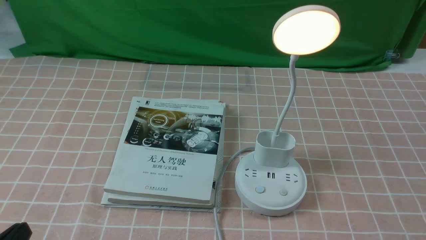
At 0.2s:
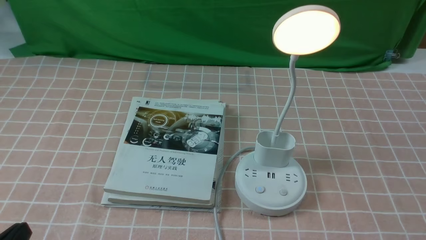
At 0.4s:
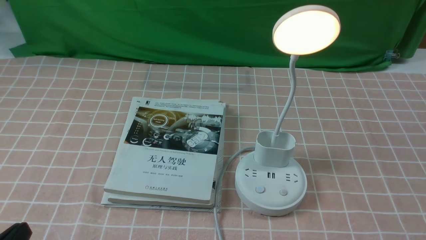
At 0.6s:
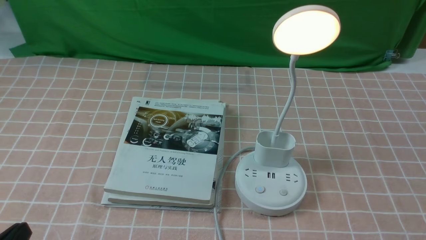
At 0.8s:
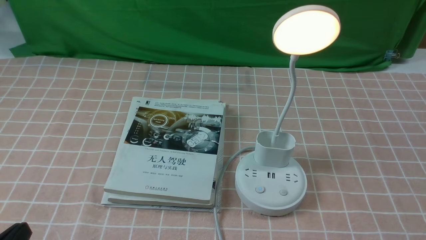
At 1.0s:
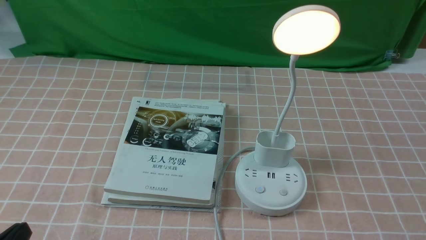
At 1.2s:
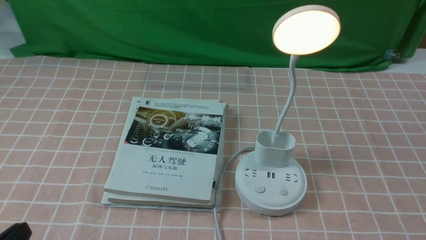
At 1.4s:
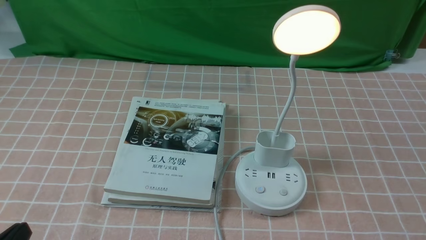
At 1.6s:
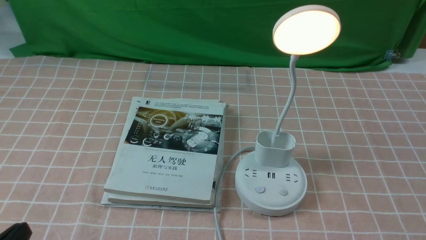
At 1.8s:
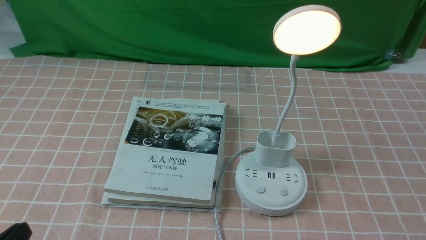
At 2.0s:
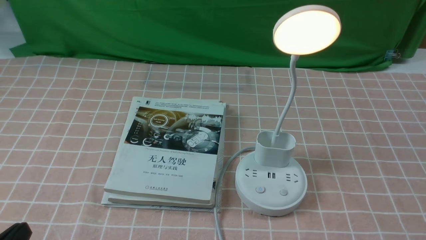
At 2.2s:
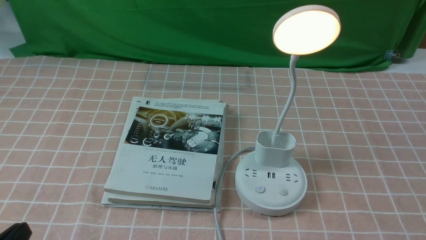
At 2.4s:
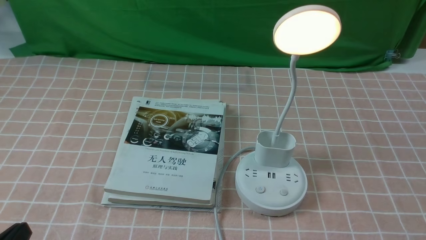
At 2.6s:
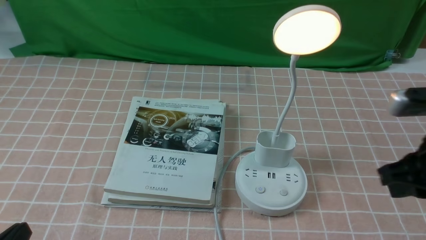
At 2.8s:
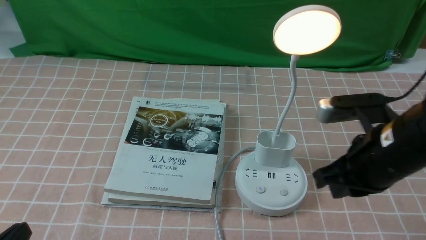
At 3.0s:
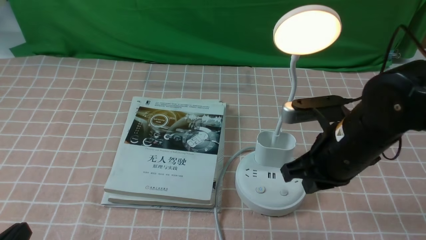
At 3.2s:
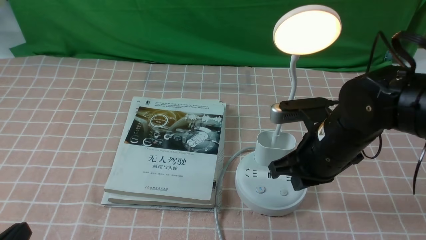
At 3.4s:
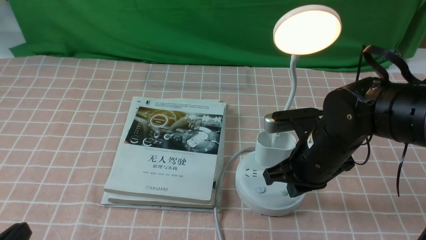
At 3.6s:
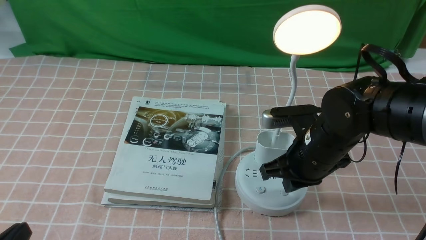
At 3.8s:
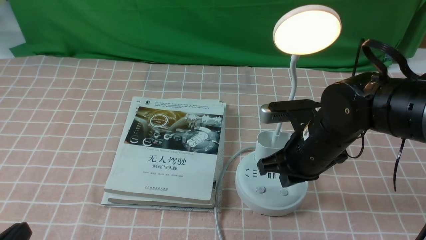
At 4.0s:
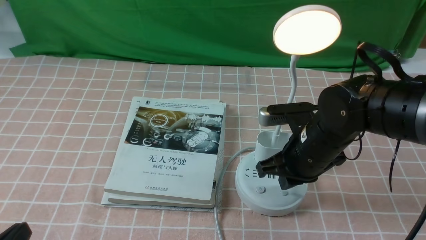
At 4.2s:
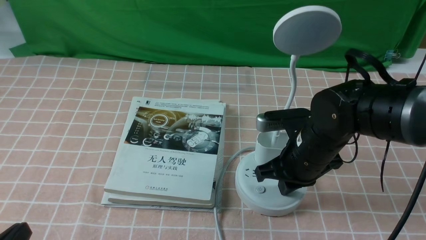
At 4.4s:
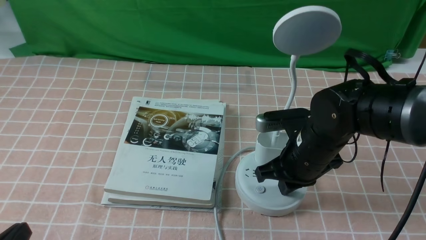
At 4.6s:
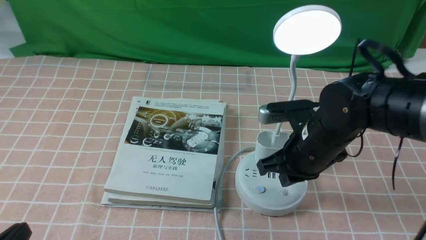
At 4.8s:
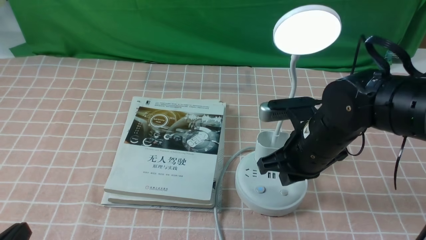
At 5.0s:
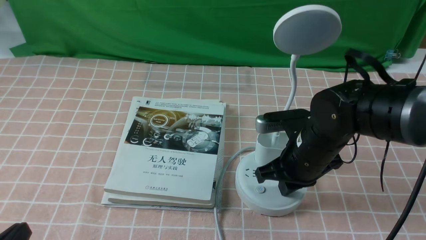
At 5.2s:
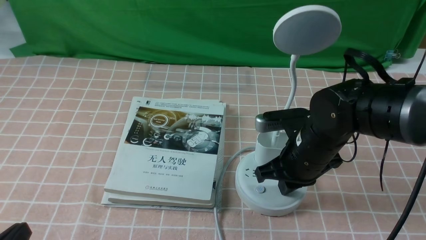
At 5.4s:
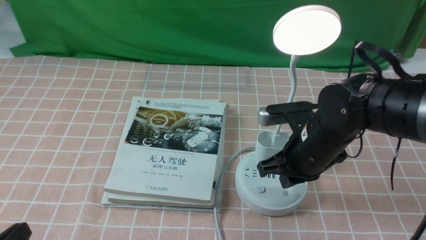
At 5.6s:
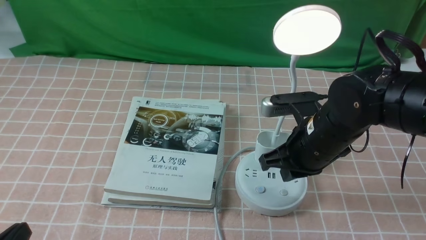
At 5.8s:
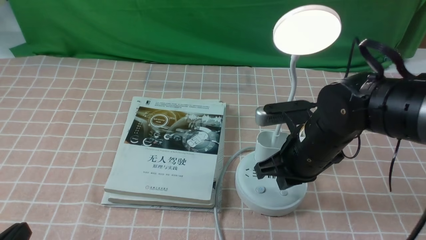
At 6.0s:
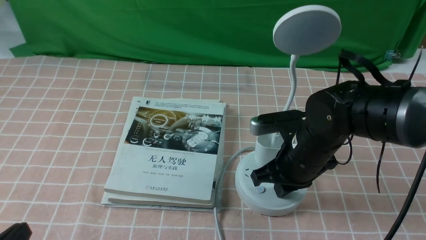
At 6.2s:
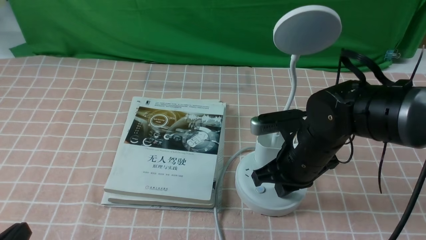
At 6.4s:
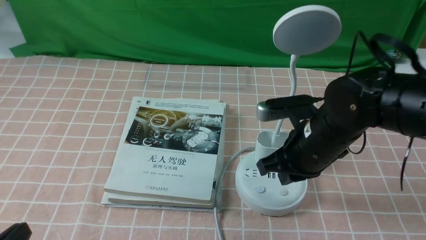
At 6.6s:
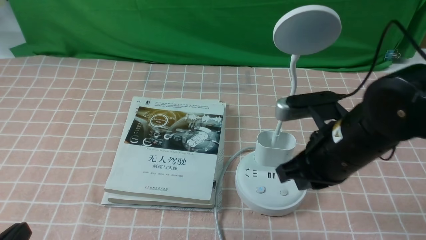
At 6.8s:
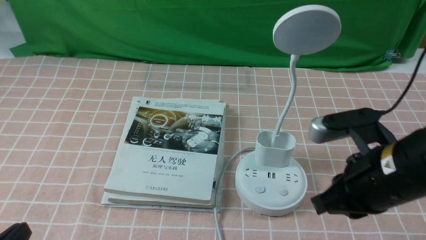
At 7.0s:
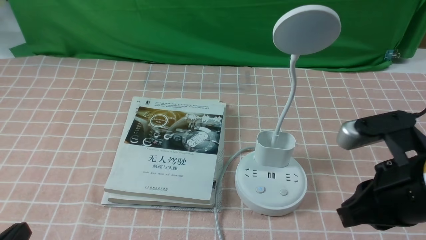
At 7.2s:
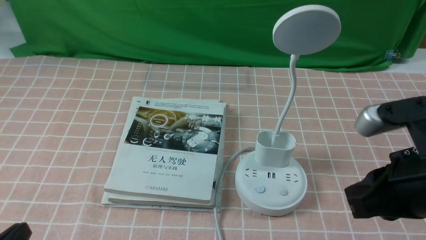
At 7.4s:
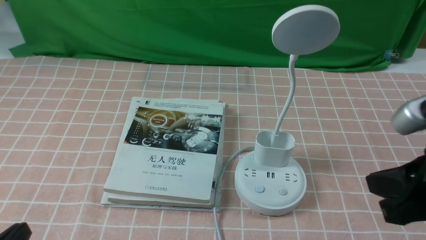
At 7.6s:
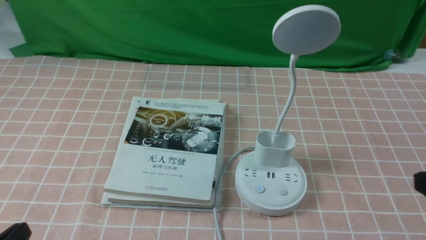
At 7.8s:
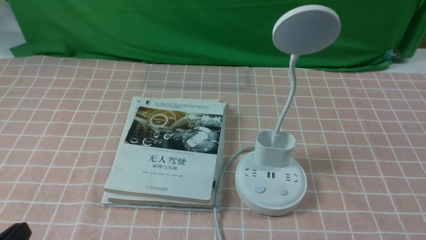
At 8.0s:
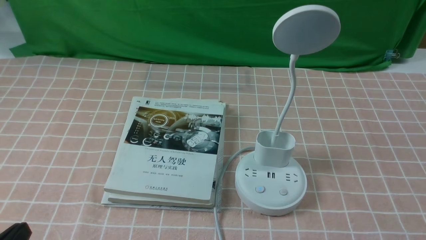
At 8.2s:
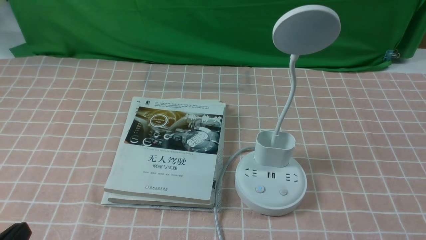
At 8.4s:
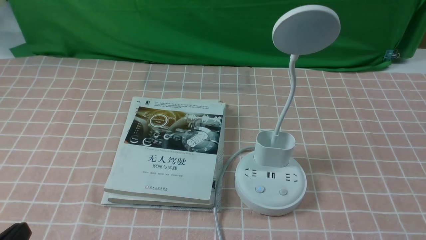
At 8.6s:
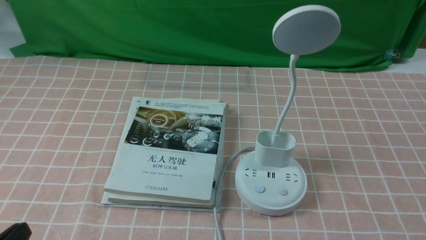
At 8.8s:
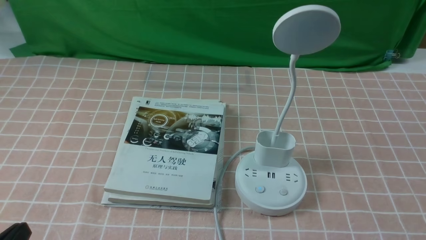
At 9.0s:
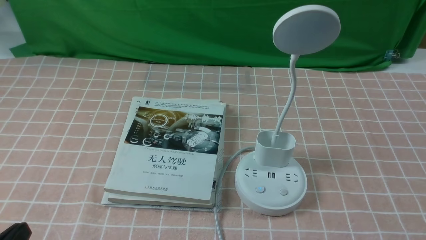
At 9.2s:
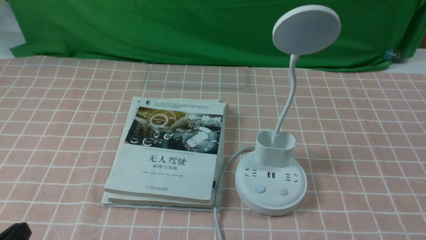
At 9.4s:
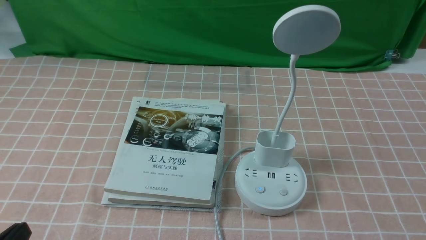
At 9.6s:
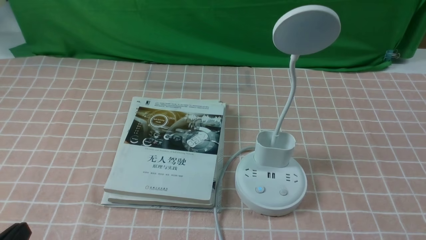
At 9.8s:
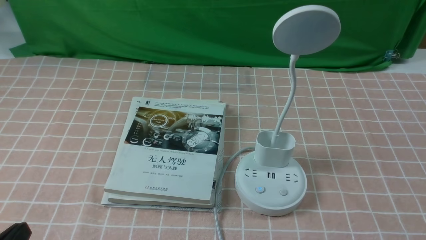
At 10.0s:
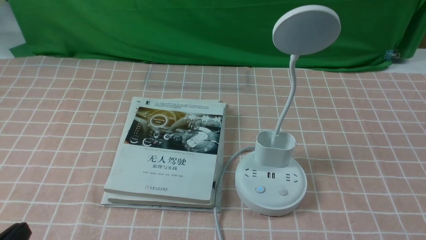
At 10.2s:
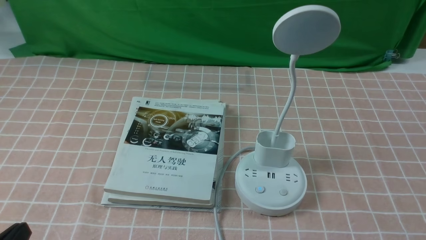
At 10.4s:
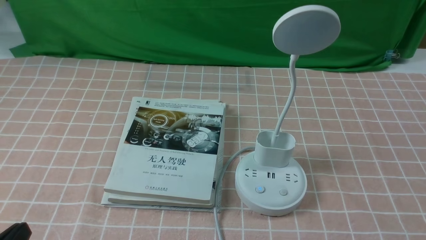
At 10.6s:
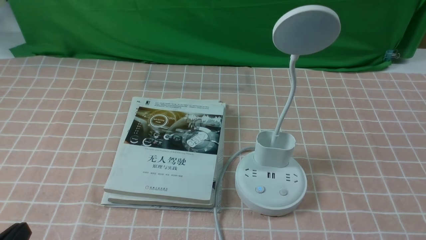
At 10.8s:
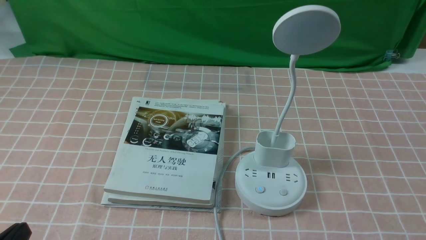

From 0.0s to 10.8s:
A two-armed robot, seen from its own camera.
Task of the whole recording: turn off the table lamp on the pink coffee tablecloth by hand.
Step, from 0.0s to 6.4s: use the right arm to press the button switch on the lamp holder.
From 1.6s to 3.0s: The right gripper moves forward and to the left, about 25 cm, and closes its fingers.
From 3.0s to 4.6s: The right gripper changes place by about 5 cm.
From 4.6s to 6.2s: The two grippers keep their place.
From 6.2s to 7.8s: The right gripper heads backward and to the right, covering some 30 cm.
From 9.2s to 10.8s: Both grippers stay put.
